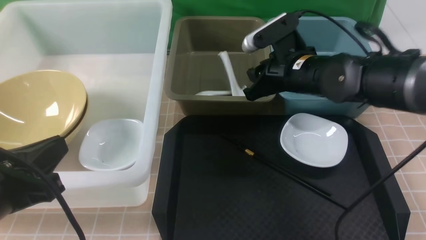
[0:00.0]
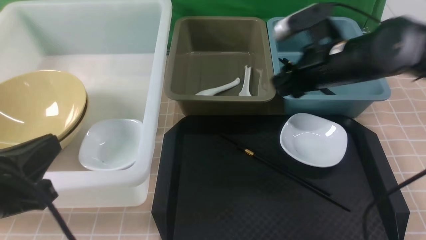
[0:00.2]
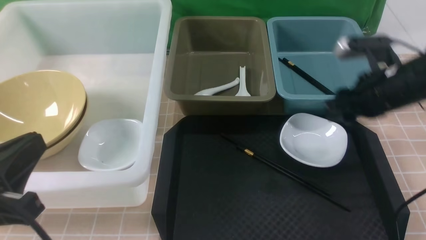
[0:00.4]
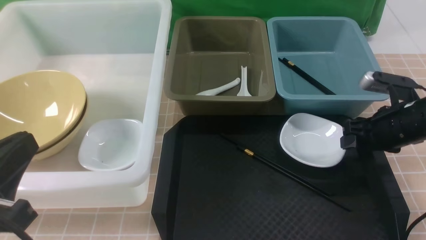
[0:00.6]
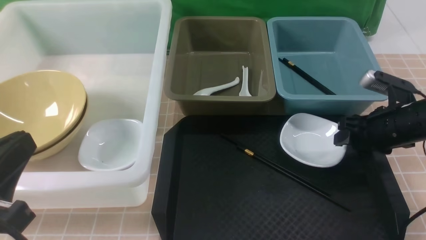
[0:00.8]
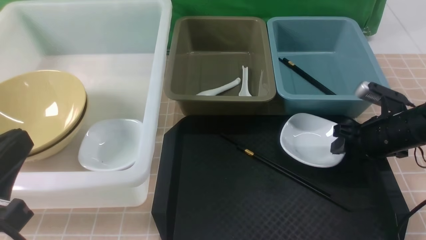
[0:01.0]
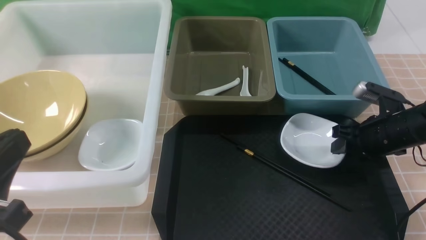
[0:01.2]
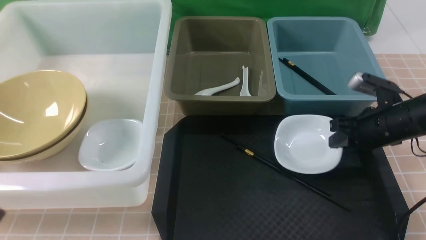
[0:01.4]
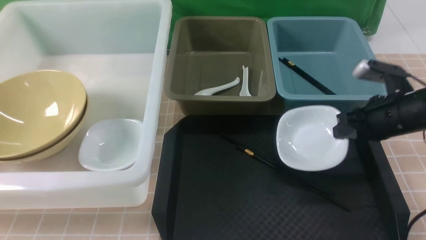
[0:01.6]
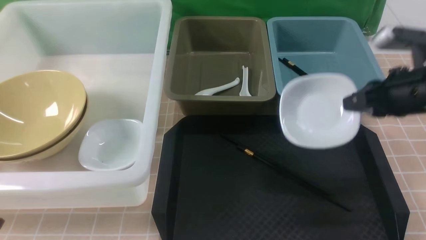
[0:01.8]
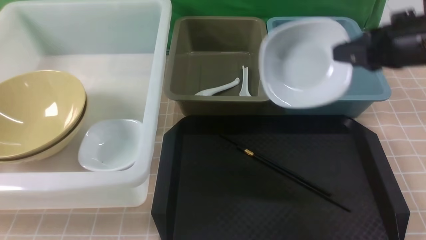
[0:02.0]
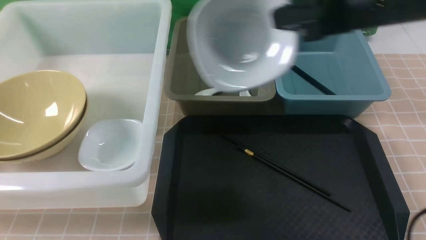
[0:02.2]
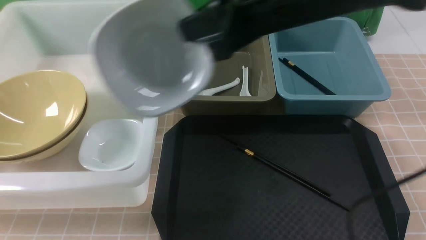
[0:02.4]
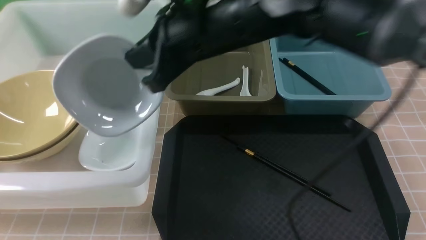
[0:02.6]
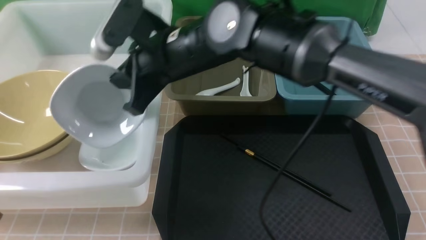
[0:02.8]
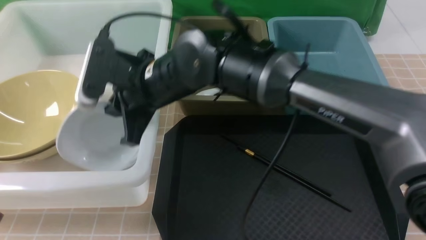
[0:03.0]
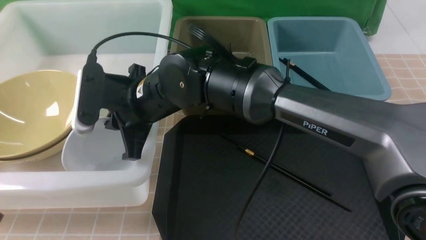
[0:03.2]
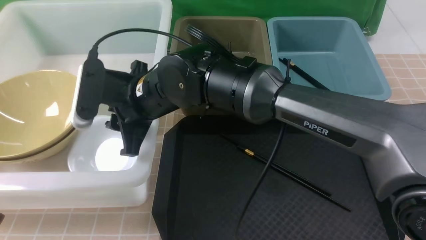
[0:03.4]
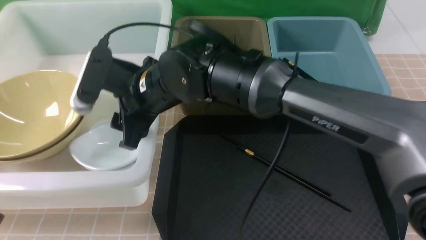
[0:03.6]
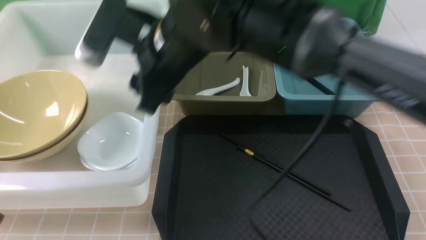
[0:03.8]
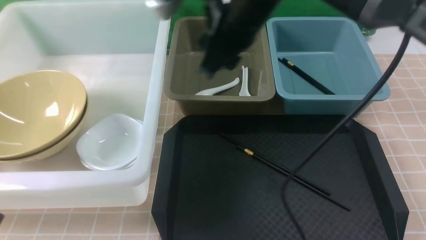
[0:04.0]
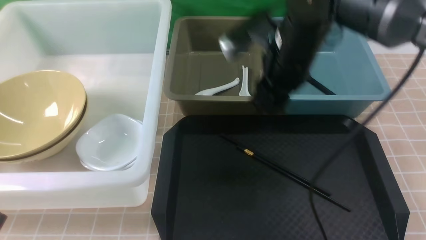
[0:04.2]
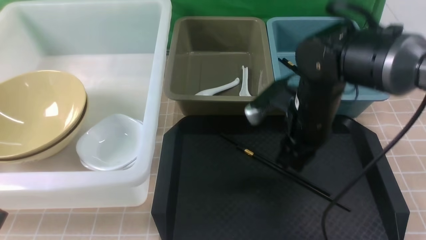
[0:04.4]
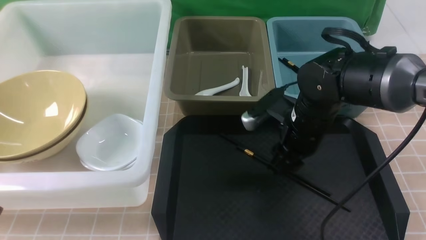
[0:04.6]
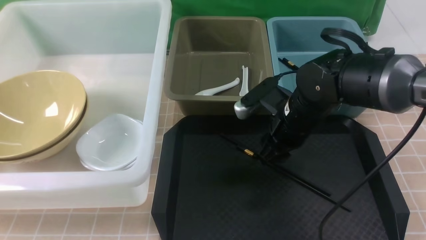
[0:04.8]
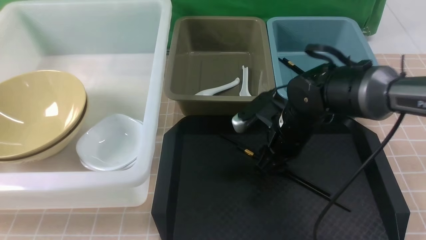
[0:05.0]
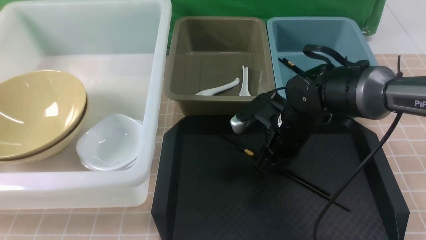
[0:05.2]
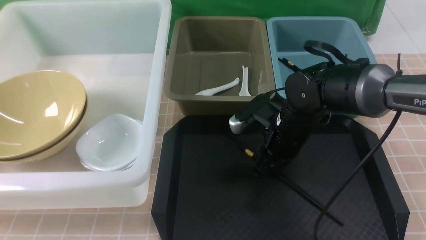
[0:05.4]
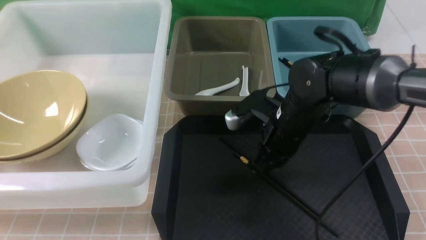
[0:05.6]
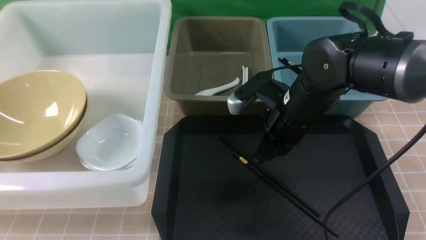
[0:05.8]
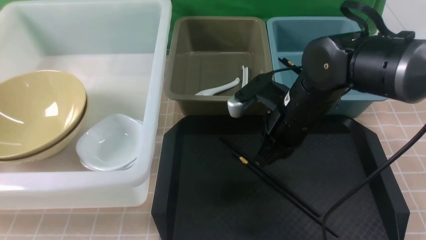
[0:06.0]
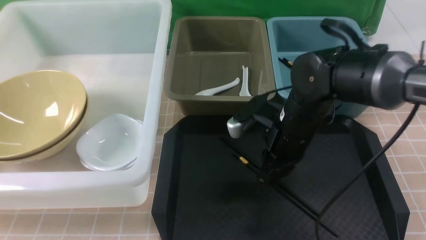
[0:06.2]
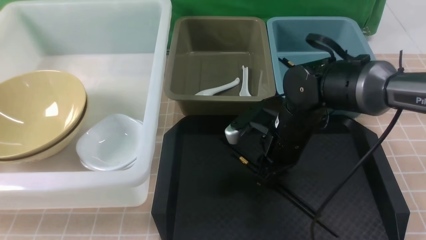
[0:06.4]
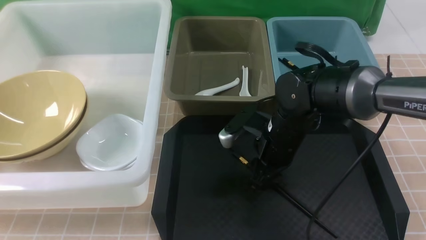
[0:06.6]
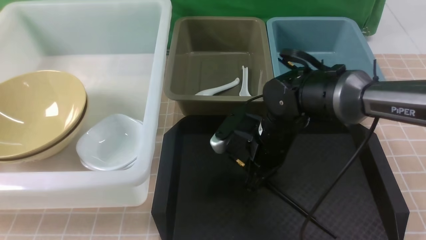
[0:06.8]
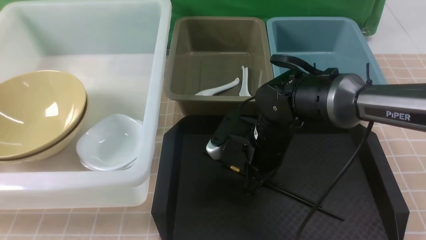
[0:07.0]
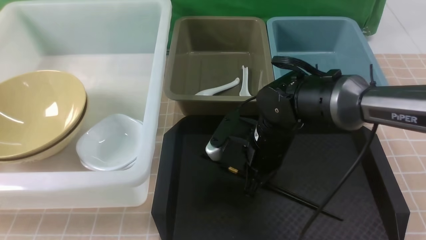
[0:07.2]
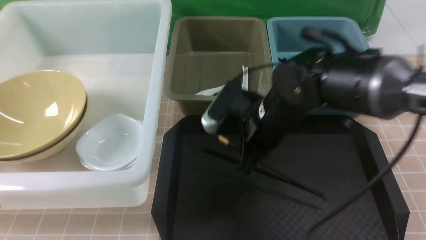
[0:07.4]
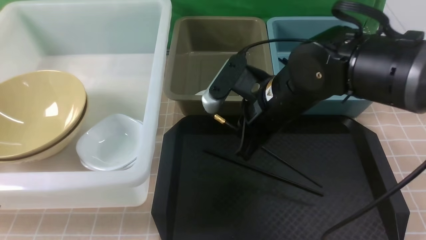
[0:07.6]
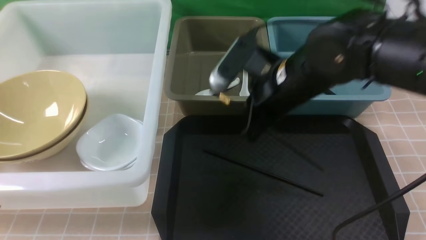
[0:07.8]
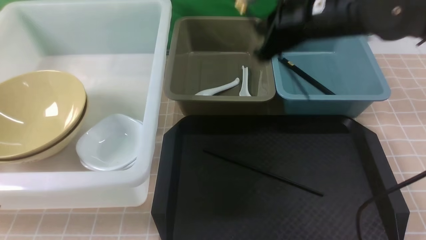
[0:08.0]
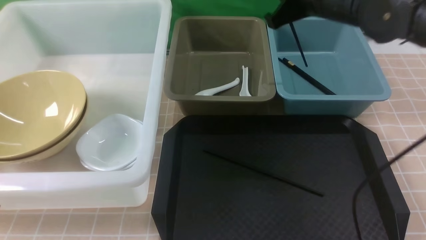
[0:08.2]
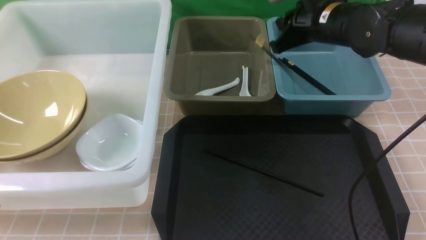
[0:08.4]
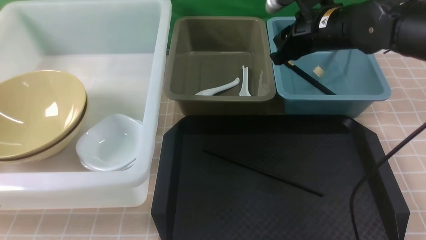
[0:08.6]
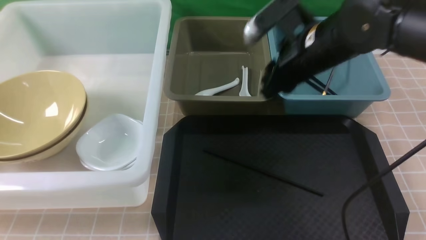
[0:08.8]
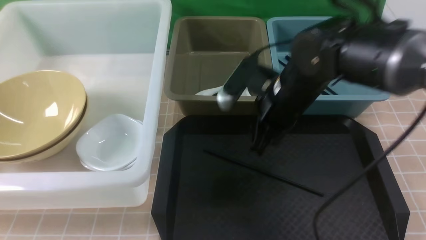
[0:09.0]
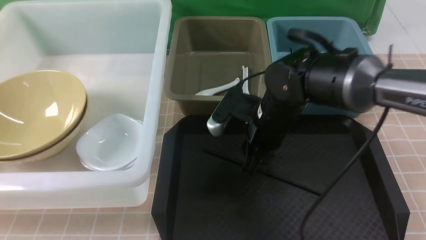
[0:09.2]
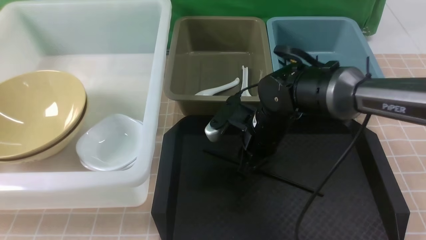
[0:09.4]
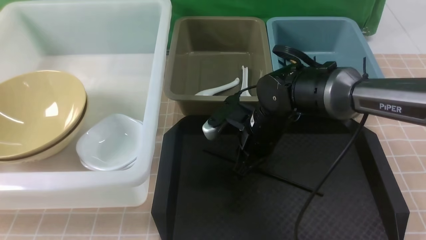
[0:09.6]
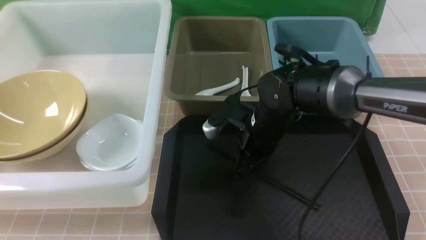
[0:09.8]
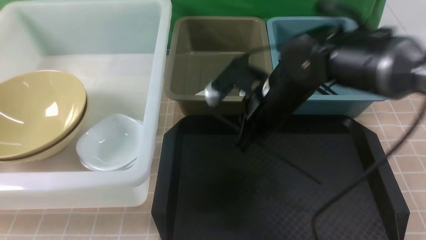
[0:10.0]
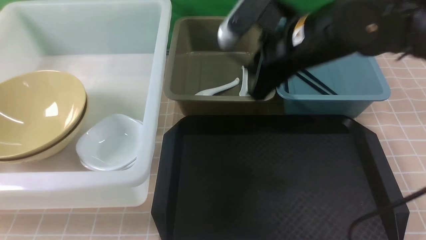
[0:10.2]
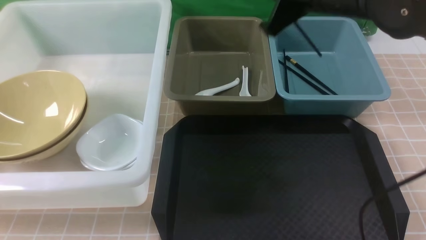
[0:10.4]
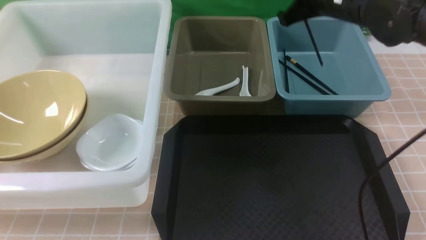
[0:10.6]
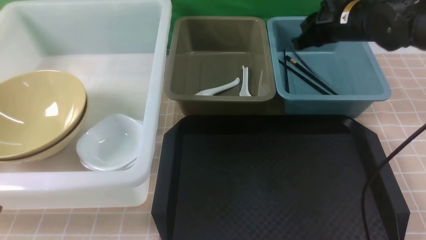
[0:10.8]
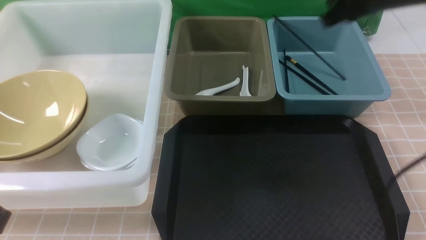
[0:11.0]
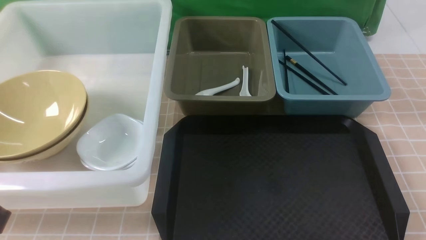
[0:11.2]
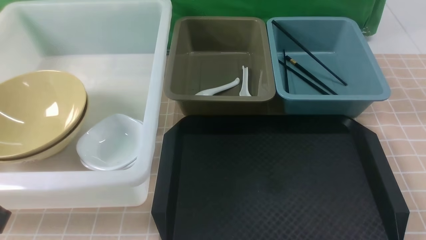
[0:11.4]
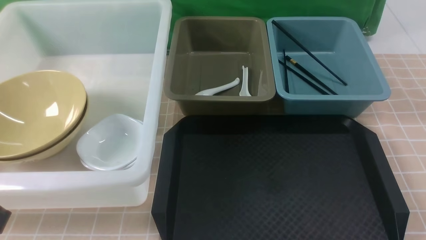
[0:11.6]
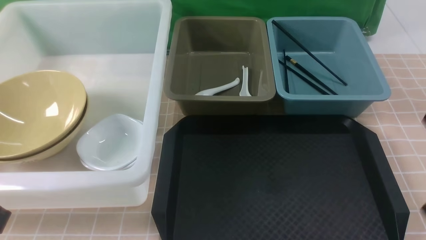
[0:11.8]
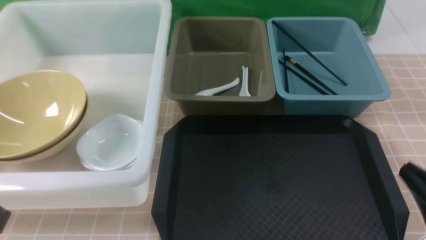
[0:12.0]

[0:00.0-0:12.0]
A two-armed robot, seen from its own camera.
Task of the whole recording: on brown table put chopsticks spoon bowls plates into blue grey white boxes.
Step, 0:00.2 to 0:01.2: use the right arm to grab the plate.
Step, 0:01.4 to 0:03.6: use the right arm to put the plate into the large storage box on the left.
Step, 0:03.8 to 0:07.6: use the right arm to grab a chopstick.
Step, 0:07.8 to 0:08.6: use the right arm to put a chopstick into the small storage box on the right.
Step, 0:08.8 to 0:09.8: use the right arm to grab a chopstick.
Step, 0:10.0 to 0:11.0: use the right arm to put a chopstick into the small storage box on the right.
0:00.0 to 0:01.6: The left gripper heads backward, covering roughly 5 cm. Meanwhile the right gripper travels to the right and backward by roughly 15 cm, and closes its fingers.
0:01.6 to 0:03.0: The right gripper shifts about 35 cm to the left.
0:03.0 to 0:04.4: The right gripper moves to the right, about 20 cm, and opens.
0:04.4 to 0:06.0: The right gripper closes its fingers.
0:06.0 to 0:07.6: The right gripper travels downward and back again, some 5 cm each way, and opens, then closes again.
0:07.6 to 0:09.0: The right gripper opens.
0:09.0 to 0:10.4: The right gripper heads upward, covering roughly 10 cm, and closes.
0:10.4 to 0:12.0: The right gripper goes about 30 cm backward, to the right and downward, and opens, then closes once more.

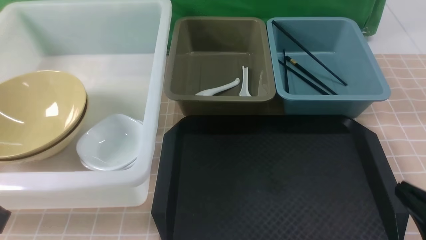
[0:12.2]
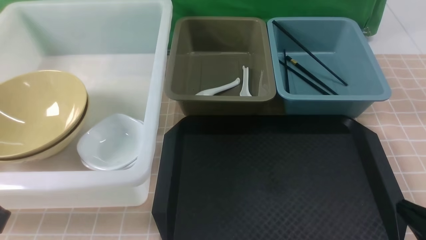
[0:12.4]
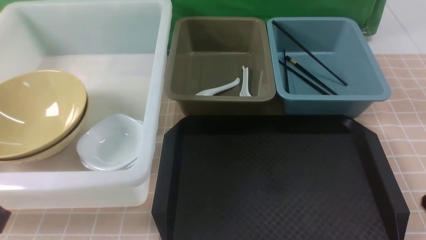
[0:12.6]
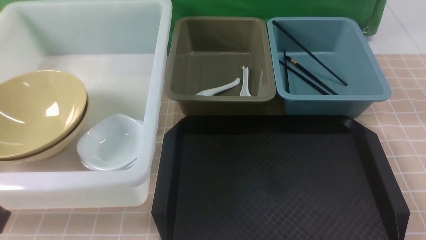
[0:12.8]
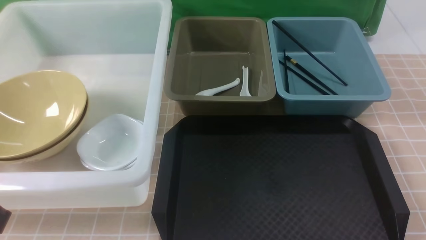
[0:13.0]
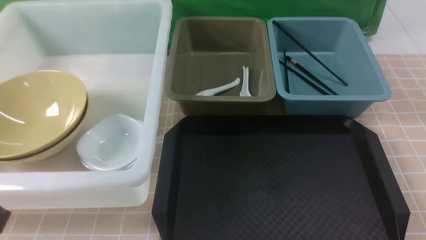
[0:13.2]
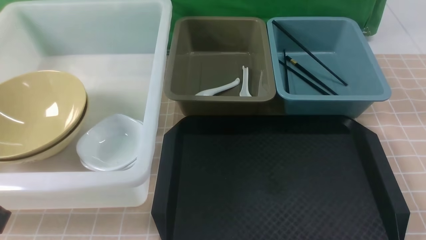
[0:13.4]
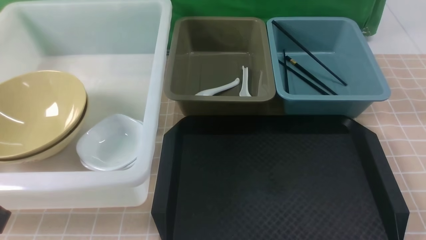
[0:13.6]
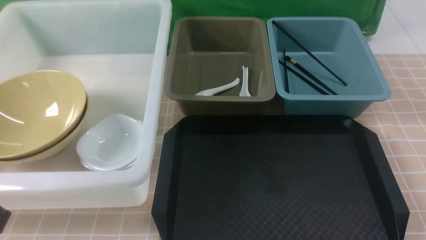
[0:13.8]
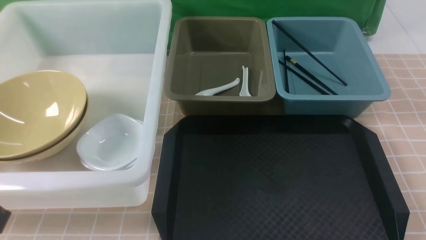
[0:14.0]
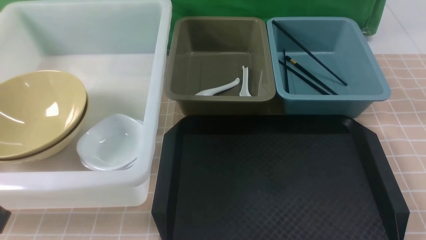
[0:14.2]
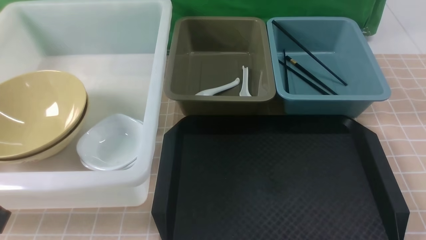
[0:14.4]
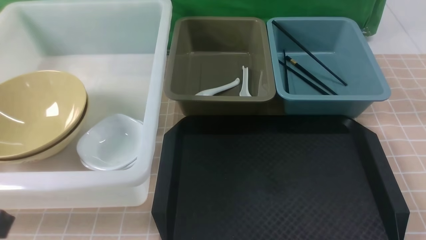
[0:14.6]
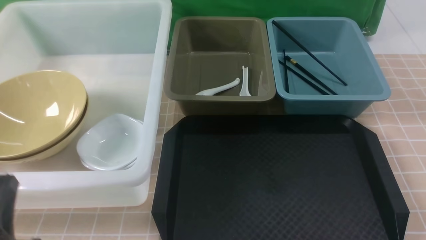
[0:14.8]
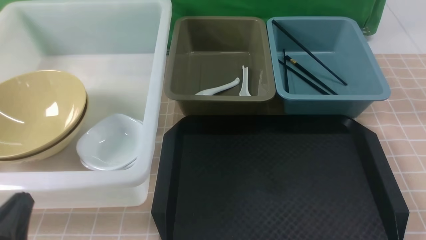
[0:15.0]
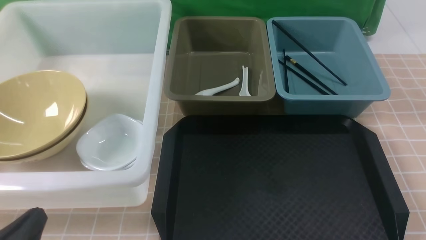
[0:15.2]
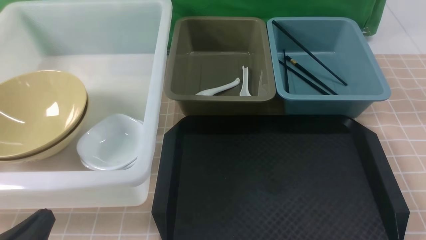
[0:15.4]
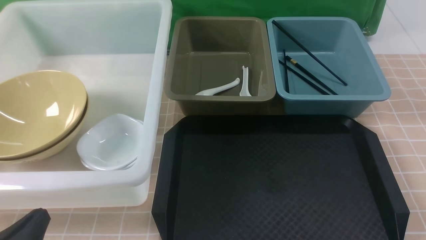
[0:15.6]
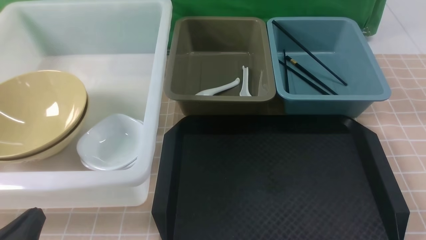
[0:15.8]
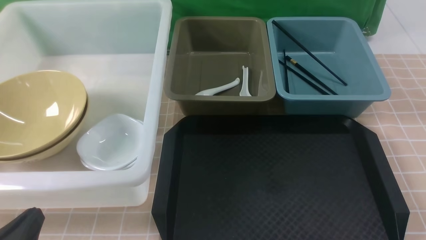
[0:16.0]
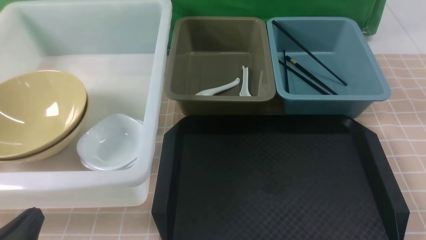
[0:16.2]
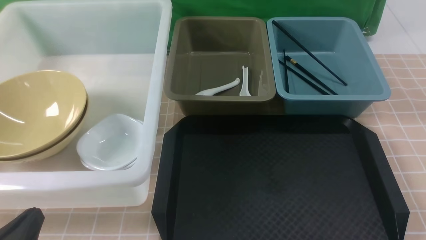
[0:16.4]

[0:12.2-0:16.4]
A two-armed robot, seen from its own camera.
Task of the whole recording: on brown table put chopsticks spoon bowls plates into blue grey white boxes.
0:12.2 to 0:13.6: The right gripper moves about 5 cm.
0:13.6 to 0:15.0: The left gripper is displaced downward by approximately 10 cm.
0:15.0 to 0:16.4: The grippers stay close to where they were, moving slightly.
